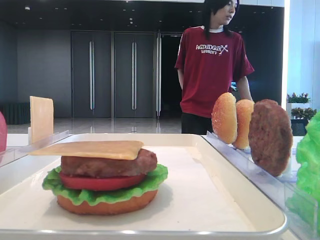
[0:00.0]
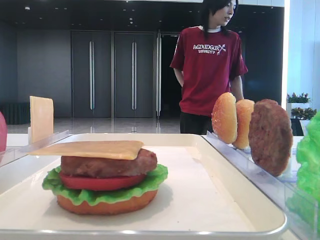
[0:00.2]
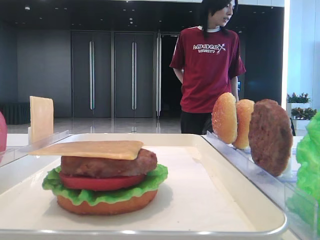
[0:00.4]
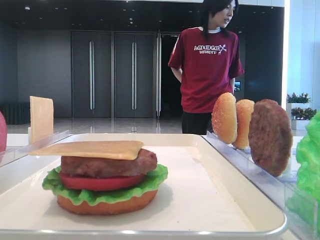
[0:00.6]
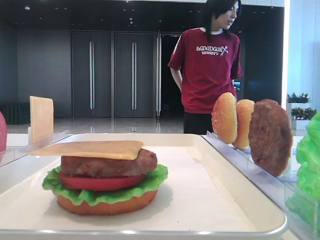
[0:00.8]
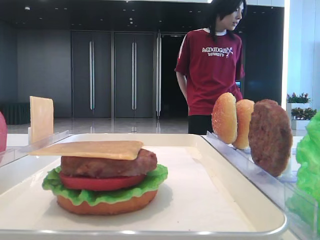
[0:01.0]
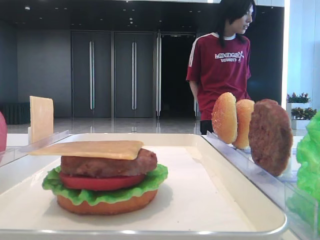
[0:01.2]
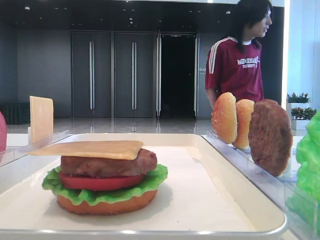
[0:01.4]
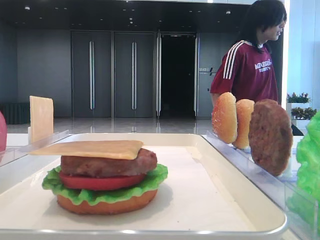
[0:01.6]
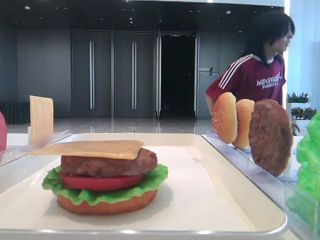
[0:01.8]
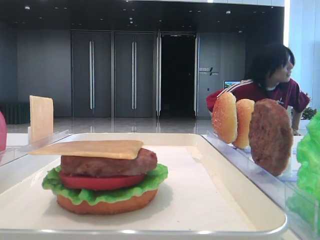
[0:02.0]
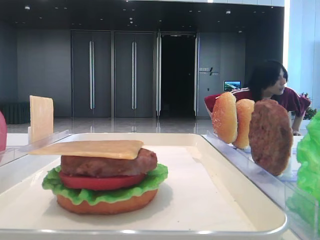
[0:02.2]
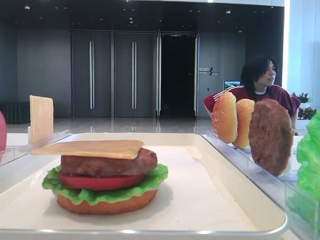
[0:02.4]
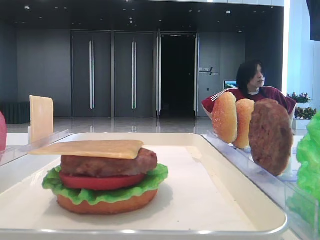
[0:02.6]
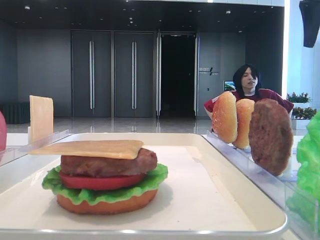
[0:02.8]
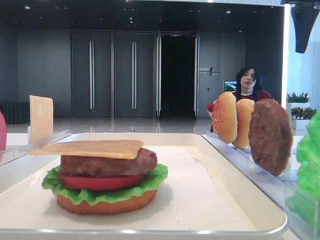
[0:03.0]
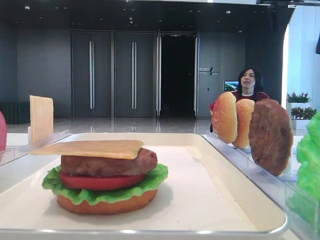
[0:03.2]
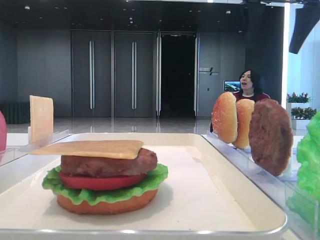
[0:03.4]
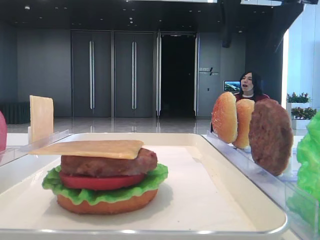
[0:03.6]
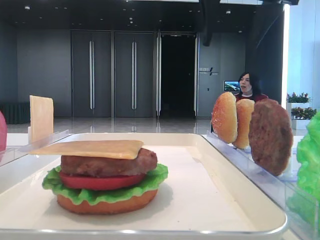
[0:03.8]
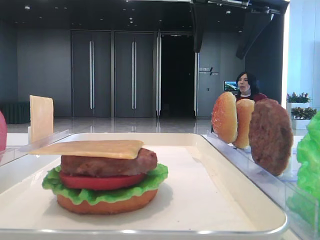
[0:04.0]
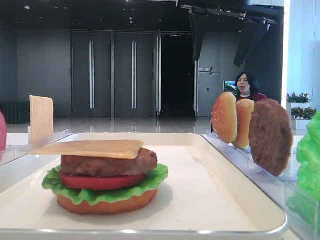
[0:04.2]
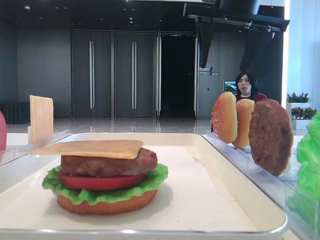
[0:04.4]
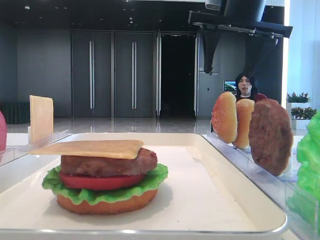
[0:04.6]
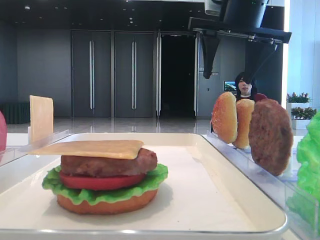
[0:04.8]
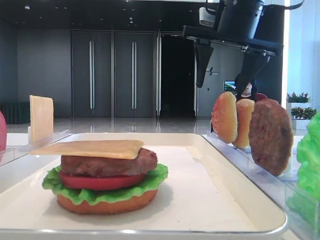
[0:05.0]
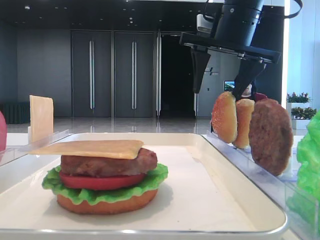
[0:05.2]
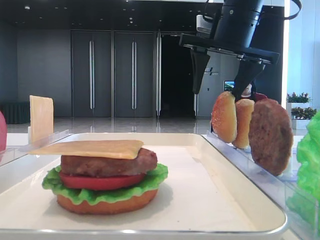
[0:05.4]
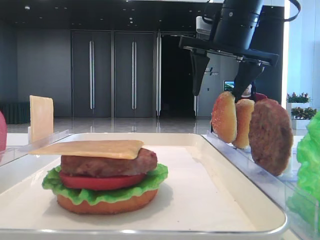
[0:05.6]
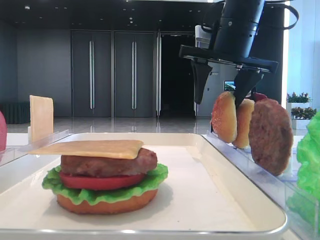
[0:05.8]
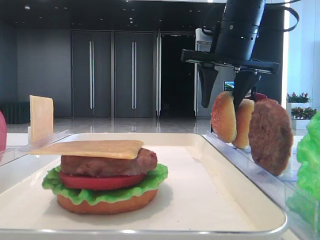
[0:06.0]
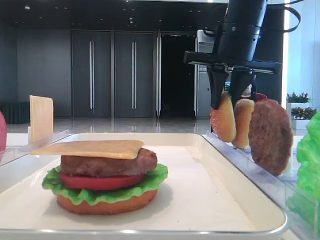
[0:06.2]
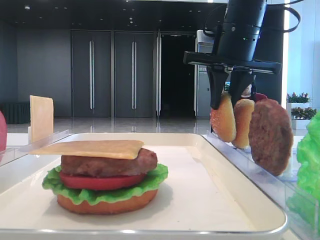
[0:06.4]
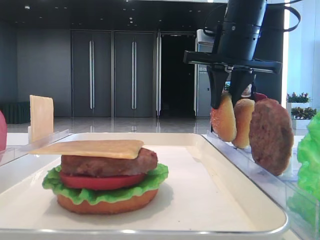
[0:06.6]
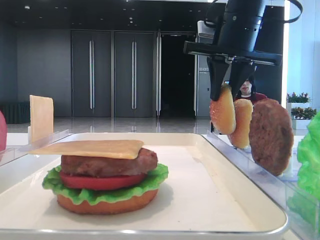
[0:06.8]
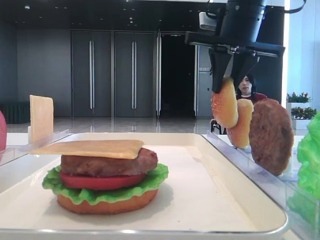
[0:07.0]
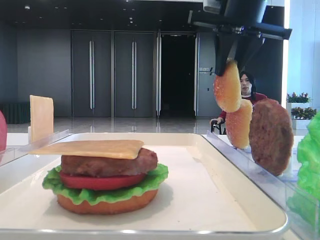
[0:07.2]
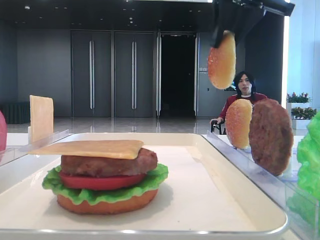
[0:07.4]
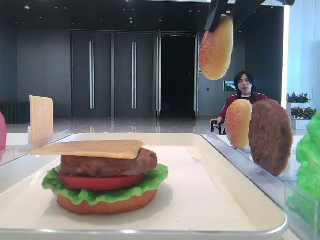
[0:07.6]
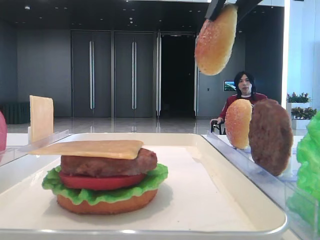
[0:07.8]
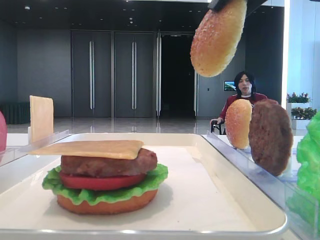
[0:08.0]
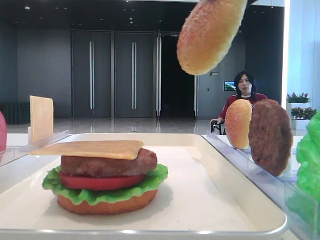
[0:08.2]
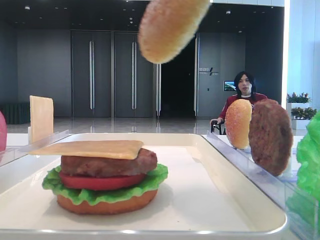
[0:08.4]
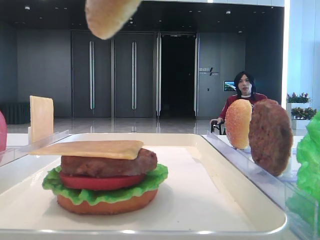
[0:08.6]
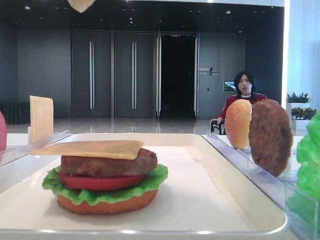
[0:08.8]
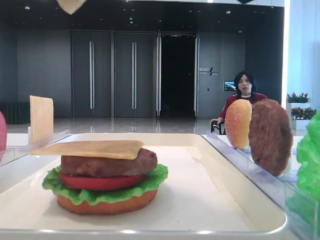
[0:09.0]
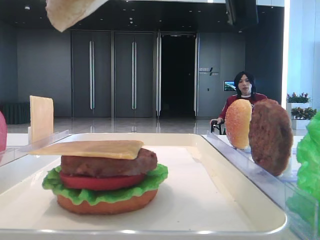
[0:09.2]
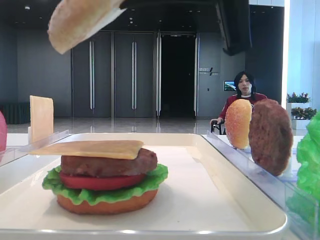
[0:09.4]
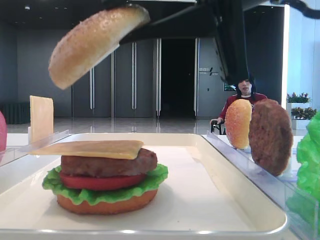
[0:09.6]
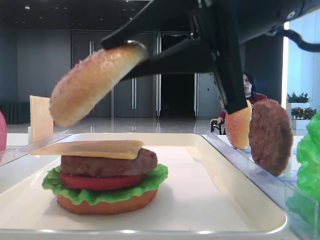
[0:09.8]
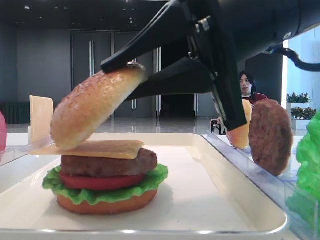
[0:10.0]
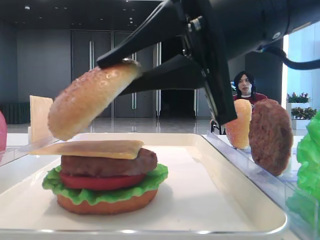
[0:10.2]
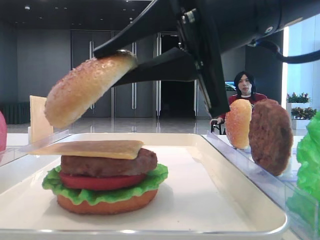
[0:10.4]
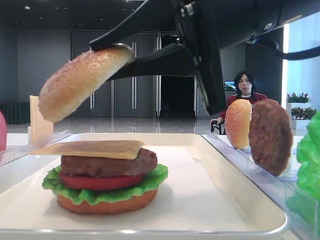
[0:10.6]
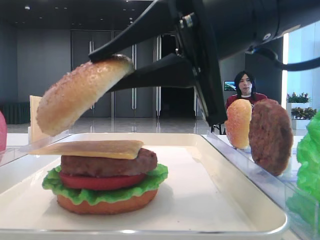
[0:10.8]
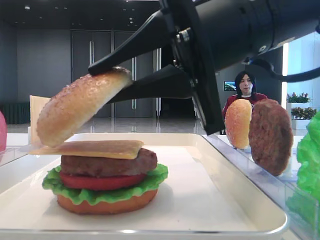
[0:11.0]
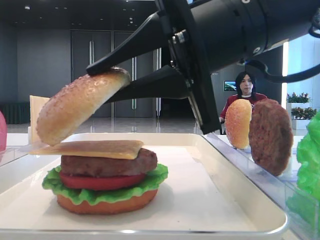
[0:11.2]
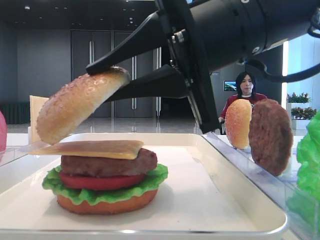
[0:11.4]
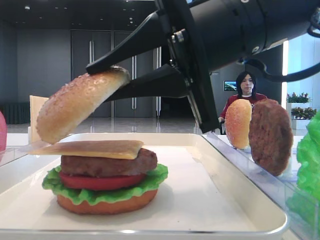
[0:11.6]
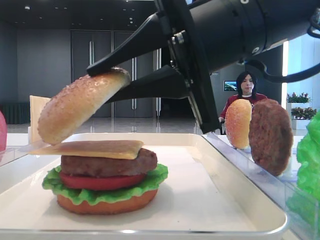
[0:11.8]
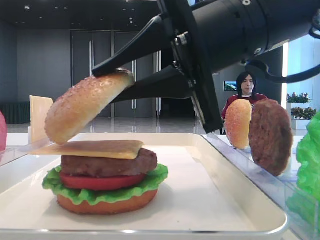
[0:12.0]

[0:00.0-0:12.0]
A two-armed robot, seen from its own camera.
Step, 0.0 to 6.4 s: Pick up the top bread slice with the right hand.
1.6 to 3.0 s: The right gripper goes roughly 25 cm forward.
3.0 to 4.4 s: The right gripper moves to the left, roughly 15 cm.
4.4 to 6.0 s: The right gripper travels downward by about 5 cm, and closes its fingers.
6.0 to 7.6 s: The right gripper heads upward and backward, covering approximately 15 cm, and closes.
7.6 to 9.0 s: The right gripper shifts approximately 15 cm backward.
9.0 to 10.4 s: The right gripper is displaced downward and forward by roughly 10 cm.
10.4 to 12.0 s: The grippers move only a little.

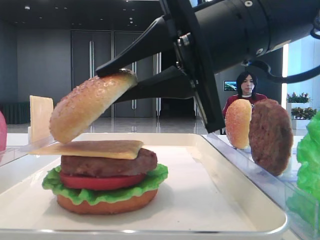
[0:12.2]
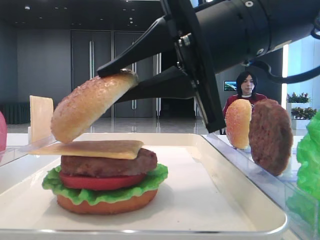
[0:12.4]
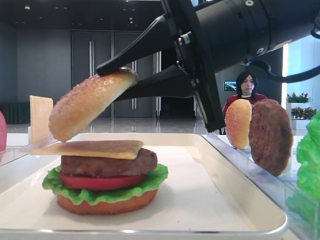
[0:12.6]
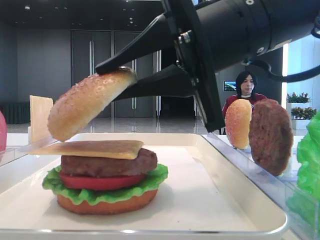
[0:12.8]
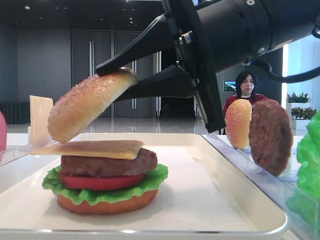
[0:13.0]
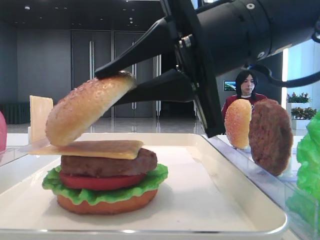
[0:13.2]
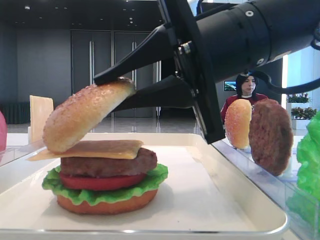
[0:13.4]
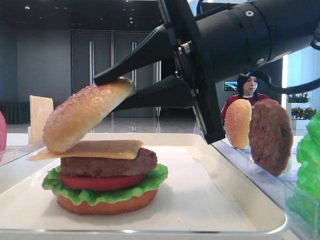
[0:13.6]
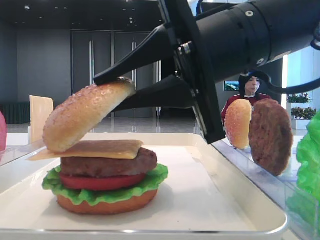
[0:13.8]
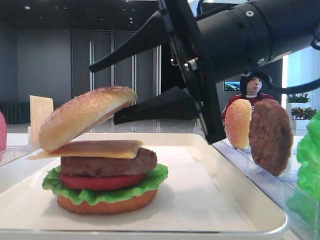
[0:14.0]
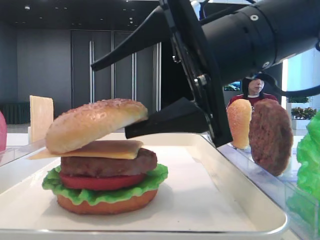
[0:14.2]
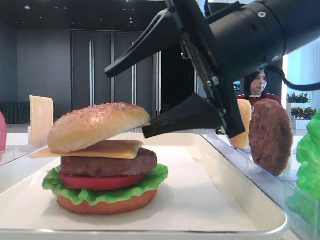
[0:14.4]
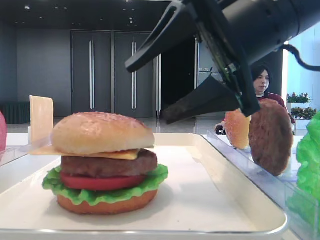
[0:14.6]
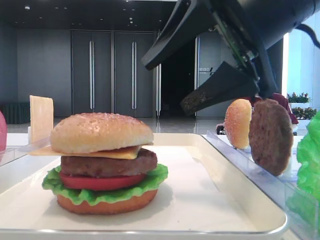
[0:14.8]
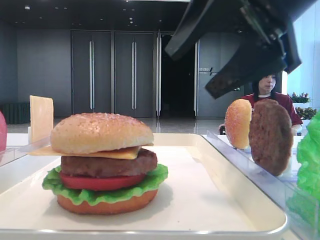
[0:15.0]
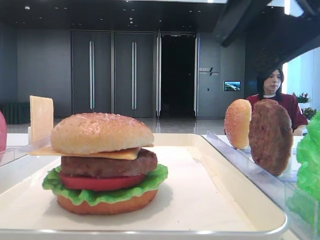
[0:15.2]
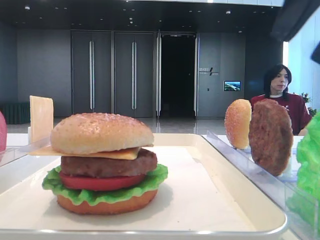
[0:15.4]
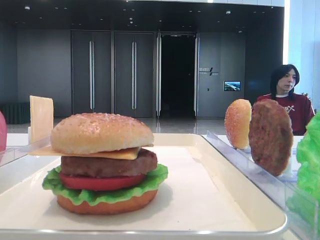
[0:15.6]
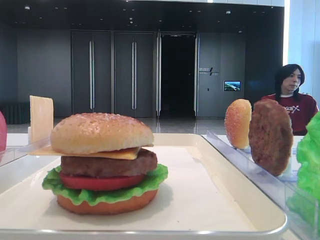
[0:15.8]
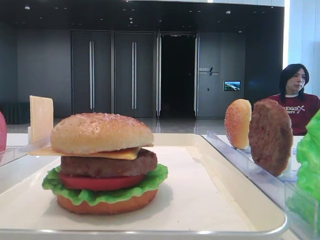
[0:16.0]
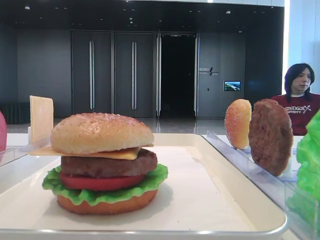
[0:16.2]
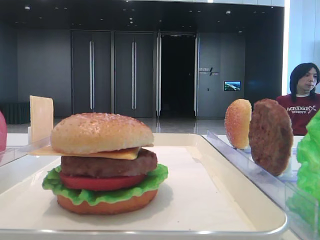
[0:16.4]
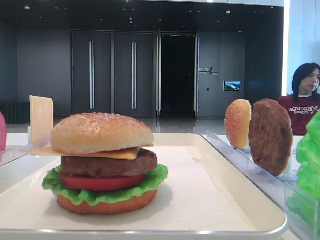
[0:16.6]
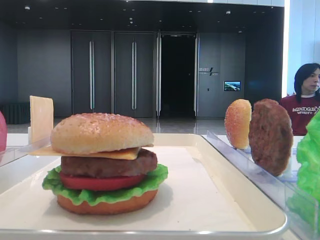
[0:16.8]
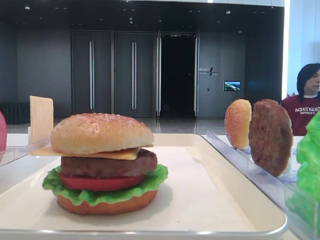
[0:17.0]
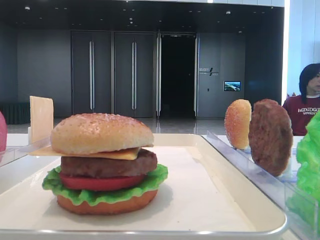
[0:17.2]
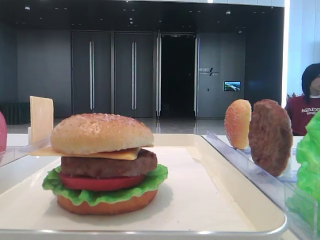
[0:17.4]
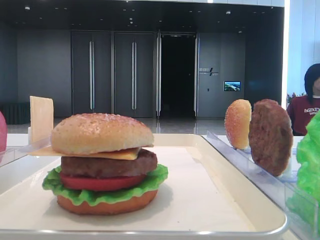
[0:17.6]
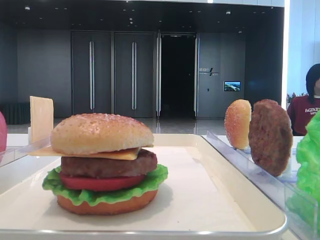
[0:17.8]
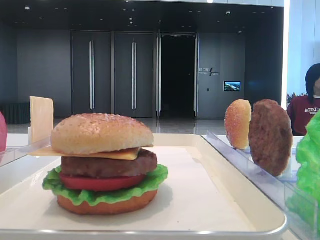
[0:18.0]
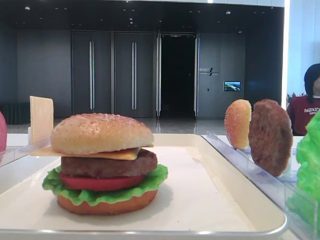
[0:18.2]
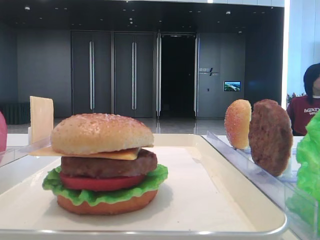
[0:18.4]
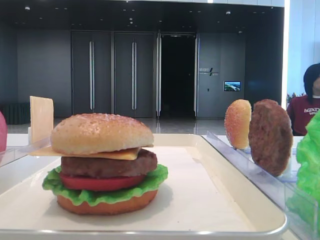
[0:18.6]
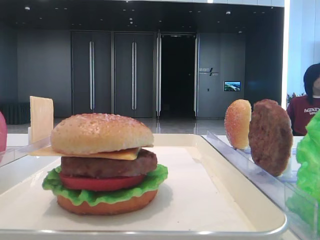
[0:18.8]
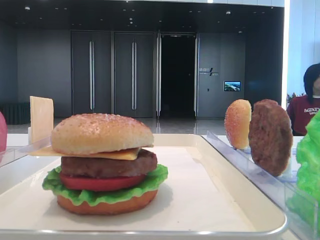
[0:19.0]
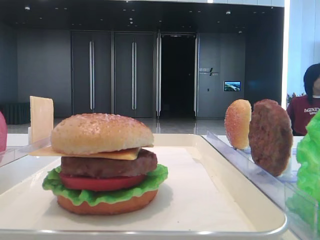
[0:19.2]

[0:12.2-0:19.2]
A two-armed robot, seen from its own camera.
Step, 12.2 to 14.4 s: Place the top bread slice on the cheese with the right hand.
12.2 to 13.6 s: Both grippers stay about where they are.
13.6 to 15.0 s: The right gripper is displaced upward and to the right by some 10 cm, and opens up.
15.0 to 16.4 s: The right gripper shifts approximately 20 cm to the right.
16.4 to 17.8 s: The right gripper travels backward by approximately 20 cm.

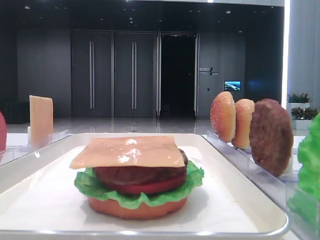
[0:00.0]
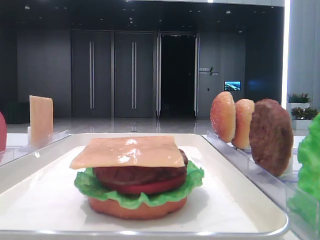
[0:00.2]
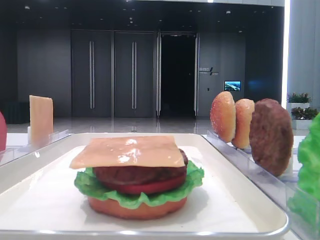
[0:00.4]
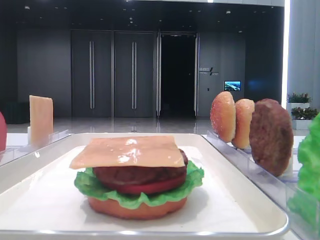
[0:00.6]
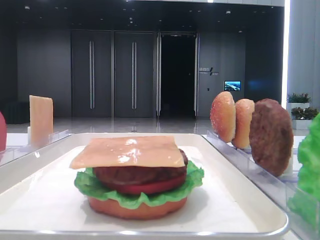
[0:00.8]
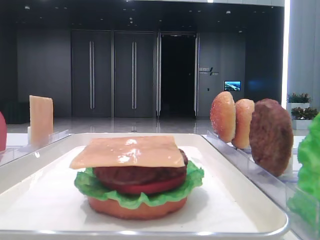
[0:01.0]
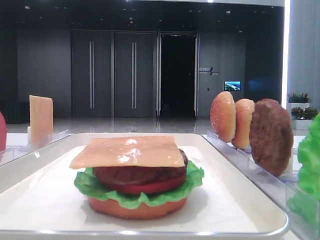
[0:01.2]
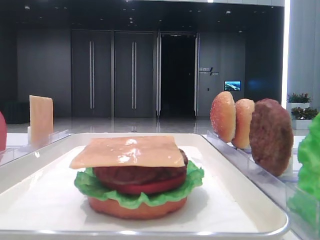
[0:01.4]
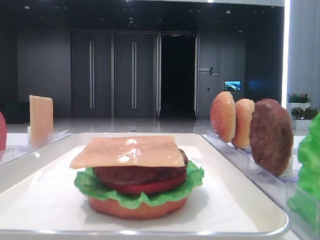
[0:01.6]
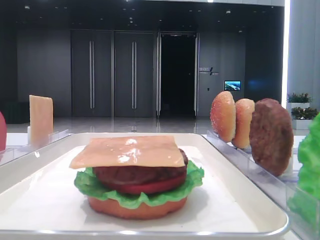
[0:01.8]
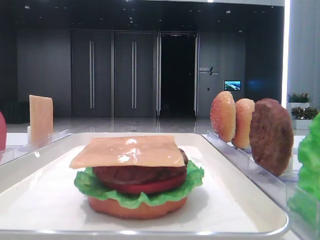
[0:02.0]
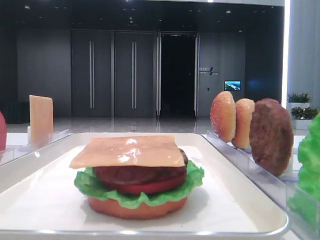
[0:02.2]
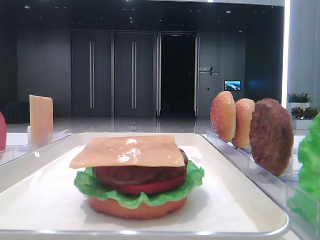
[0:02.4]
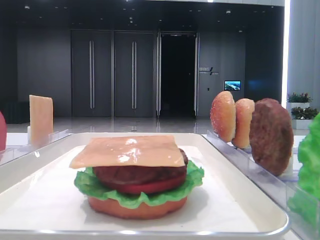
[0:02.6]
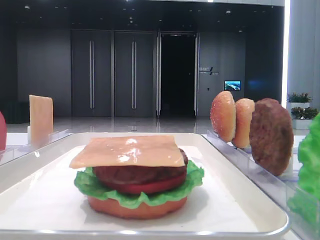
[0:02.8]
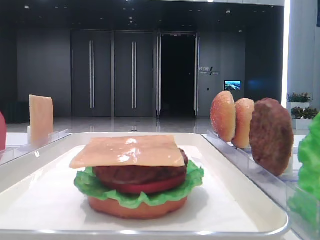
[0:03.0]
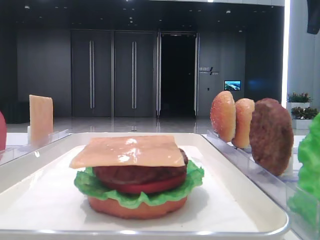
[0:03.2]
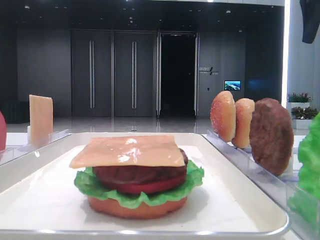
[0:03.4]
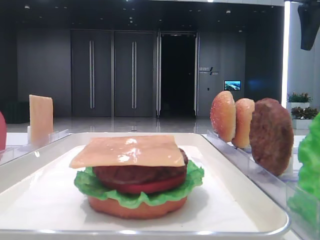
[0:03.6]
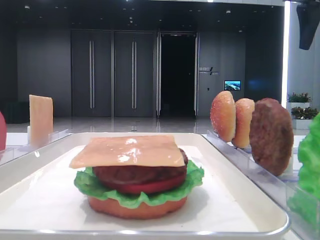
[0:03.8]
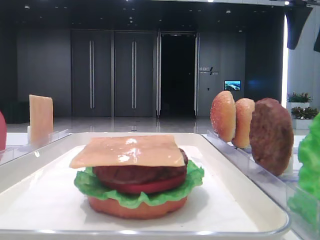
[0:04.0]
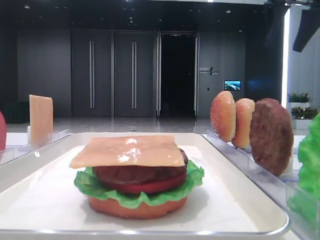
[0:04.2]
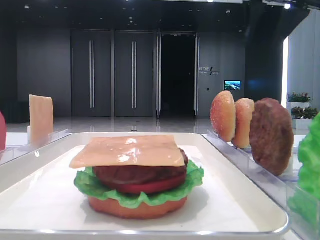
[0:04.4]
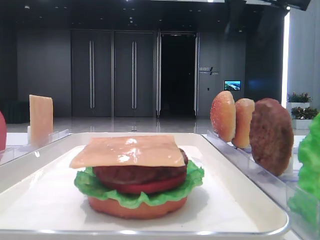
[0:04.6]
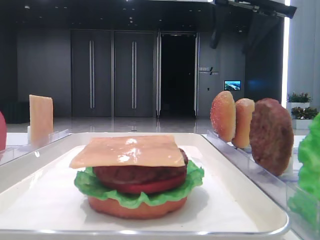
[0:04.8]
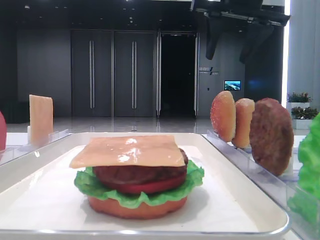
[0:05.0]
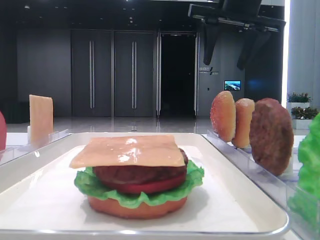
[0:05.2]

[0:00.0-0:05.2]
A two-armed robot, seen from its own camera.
1.8 to 3.4 s: The right gripper goes roughly 20 cm forward.
3.4 to 5.2 s: The right gripper is displaced to the left by some 15 cm.
